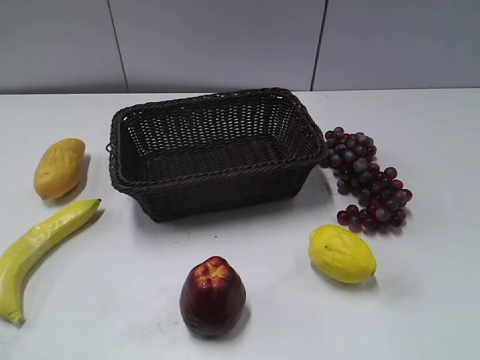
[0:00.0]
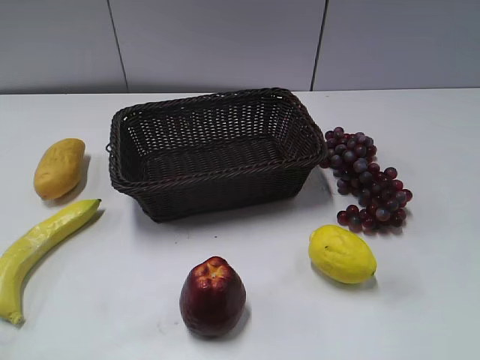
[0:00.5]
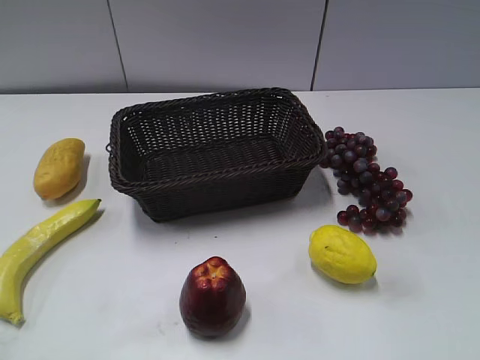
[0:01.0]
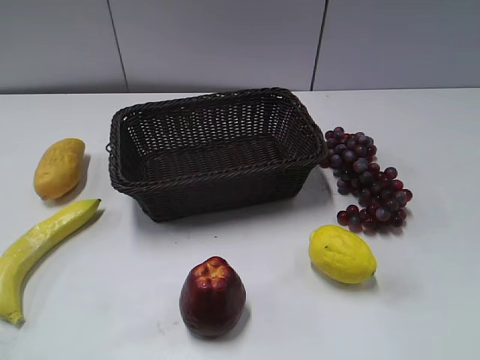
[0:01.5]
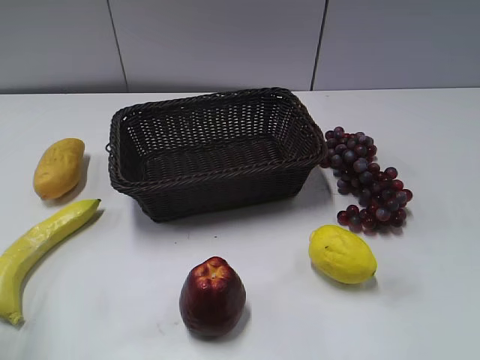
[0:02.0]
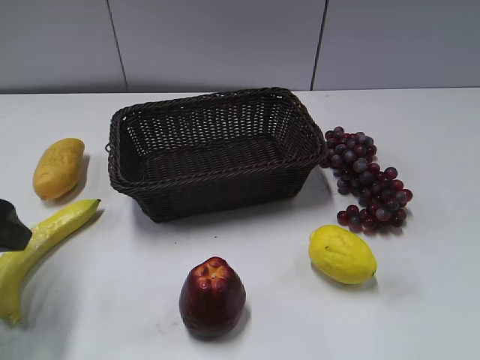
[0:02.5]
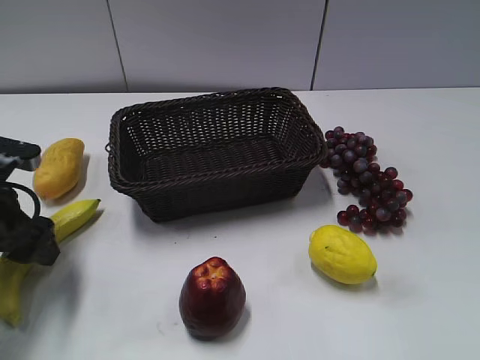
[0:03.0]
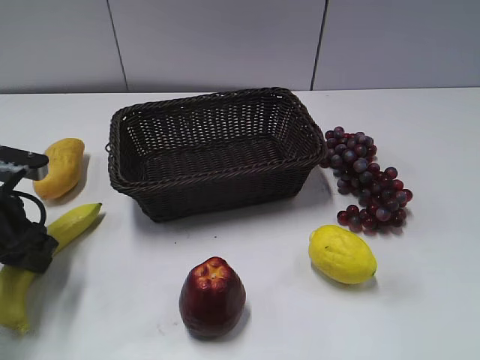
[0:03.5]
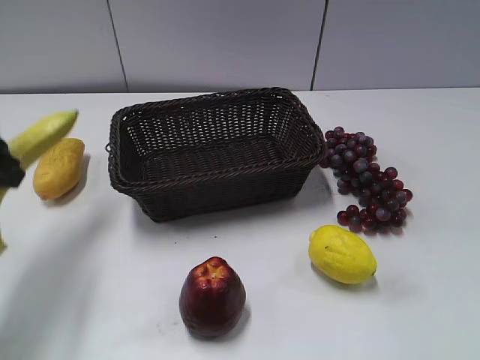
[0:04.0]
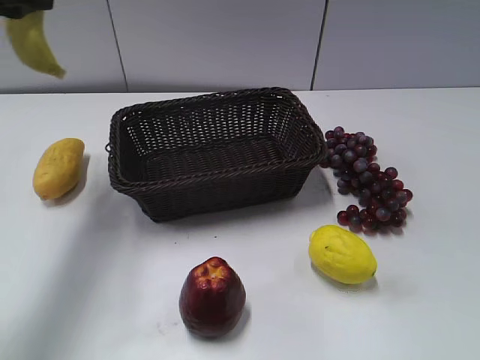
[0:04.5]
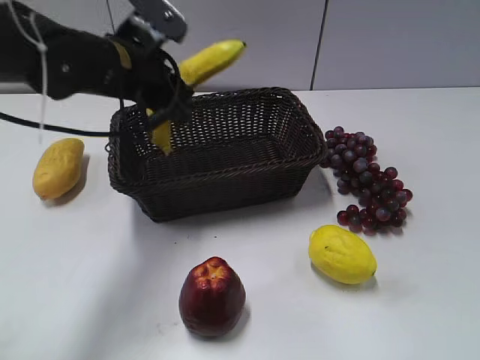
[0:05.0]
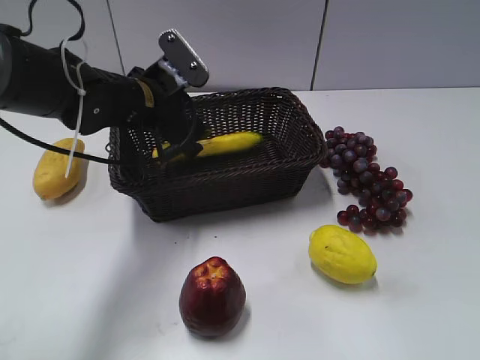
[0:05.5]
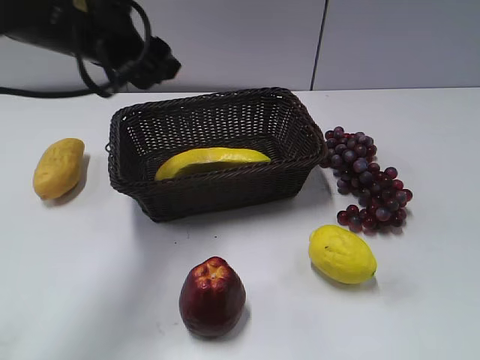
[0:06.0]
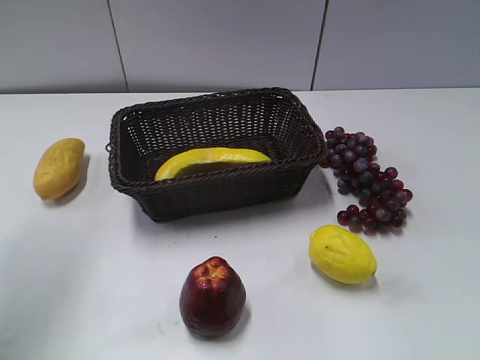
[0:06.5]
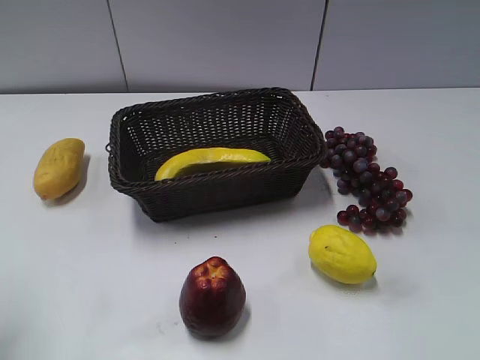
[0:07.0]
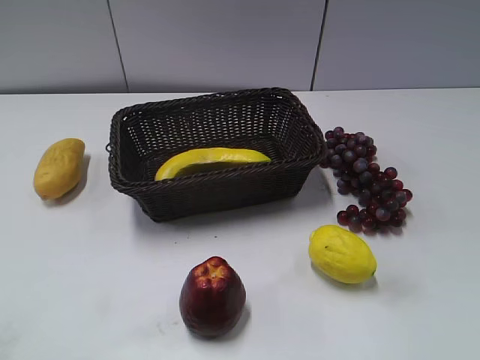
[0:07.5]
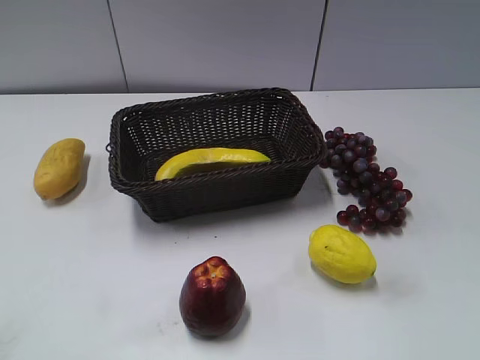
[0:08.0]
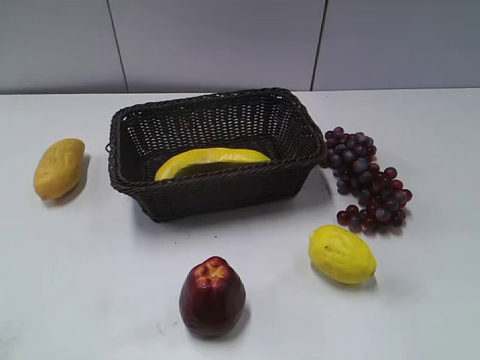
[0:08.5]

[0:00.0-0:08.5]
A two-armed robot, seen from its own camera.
Step, 0:02.5 to 0:03.5: Grasp the banana with left gripper.
Step, 0:04.0 to 0:05.5: Place the banana in the basket with left gripper.
0:02.0 to 0:04.0: The left gripper is displaced forward by some 15 cm, moves some 15 cm downward and comes back, and closes up.
0:04.0 to 0:06.5: The left gripper moves up and down over roughly 20 cm, changing direction 2 times, and opens.
0:06.5 to 0:08.5: The left gripper moves backward, approximately 25 cm.

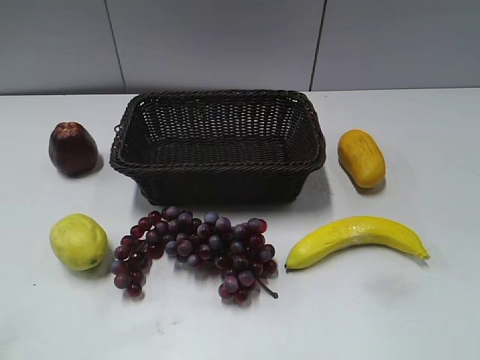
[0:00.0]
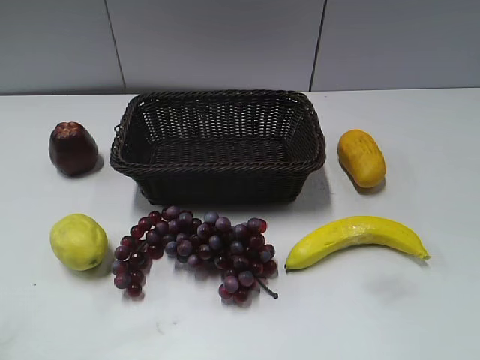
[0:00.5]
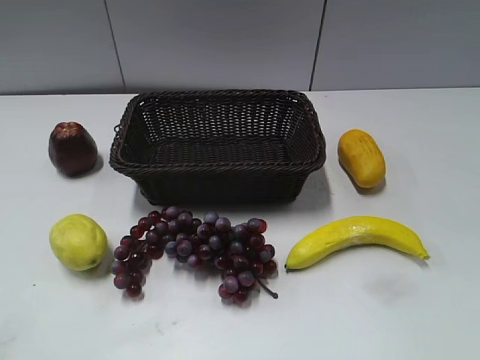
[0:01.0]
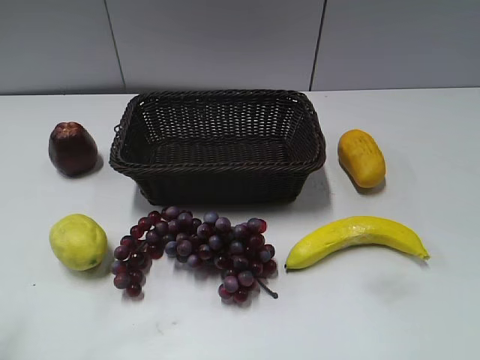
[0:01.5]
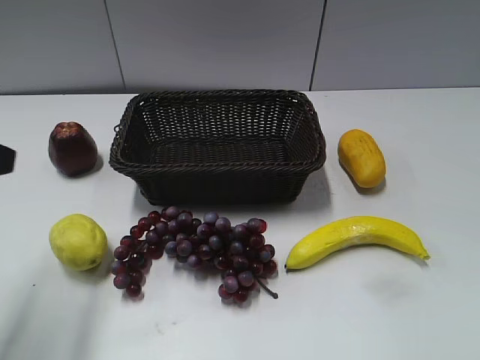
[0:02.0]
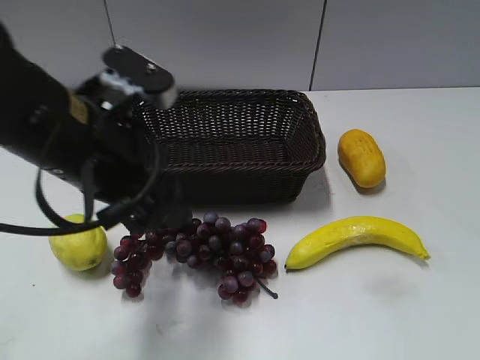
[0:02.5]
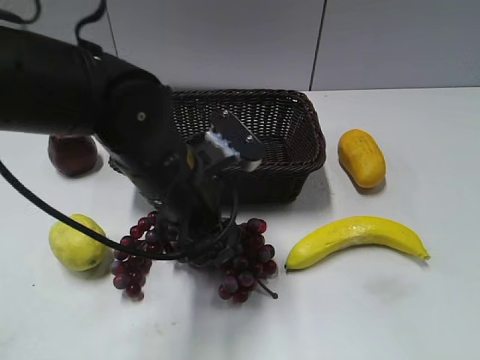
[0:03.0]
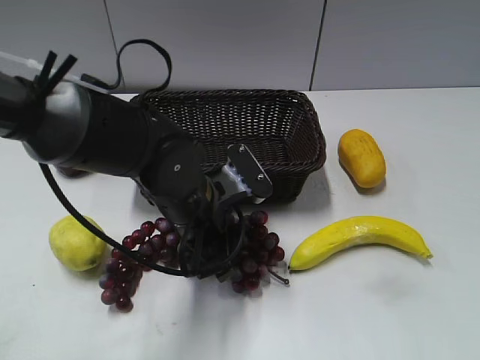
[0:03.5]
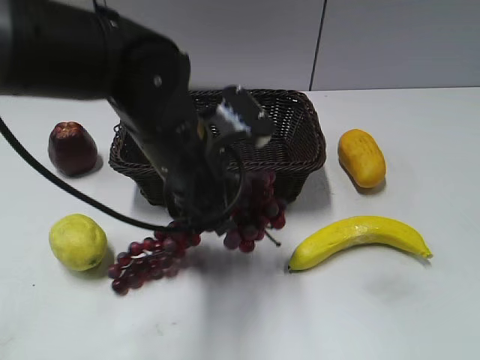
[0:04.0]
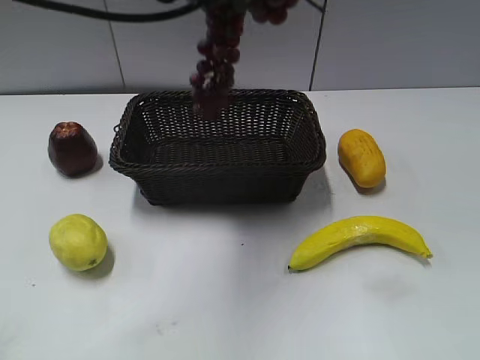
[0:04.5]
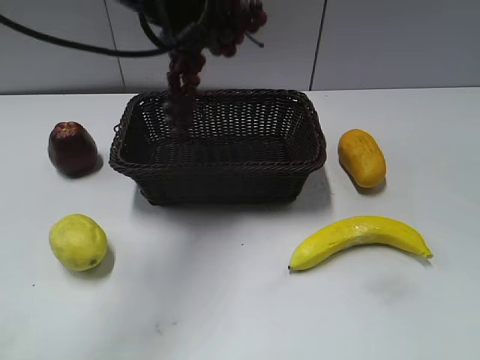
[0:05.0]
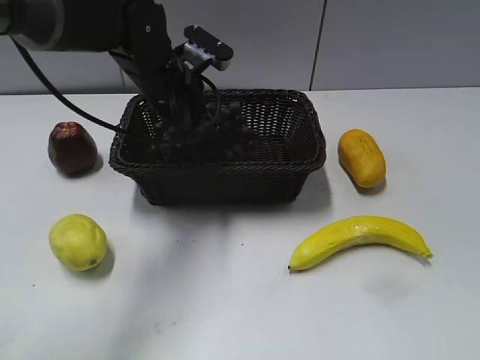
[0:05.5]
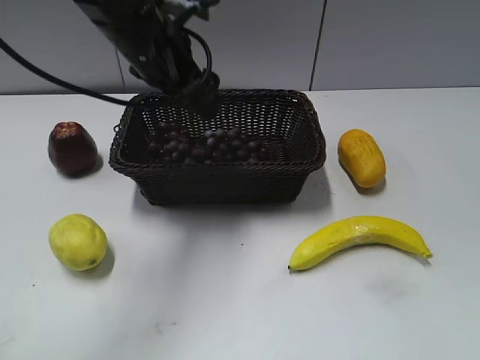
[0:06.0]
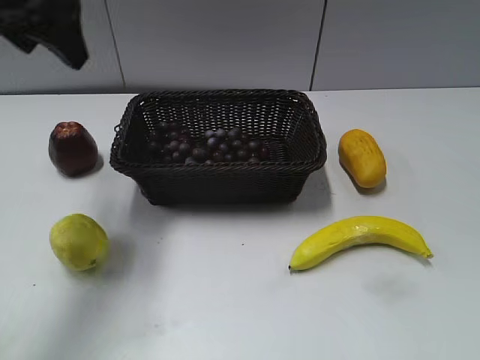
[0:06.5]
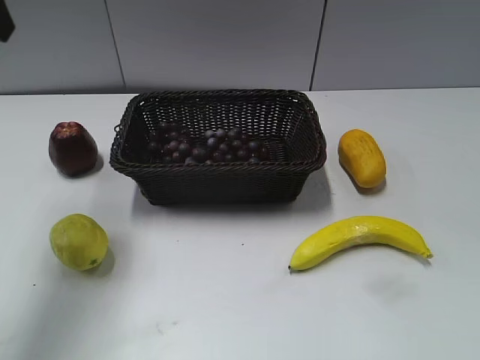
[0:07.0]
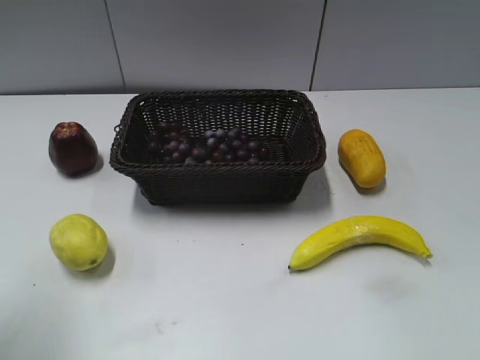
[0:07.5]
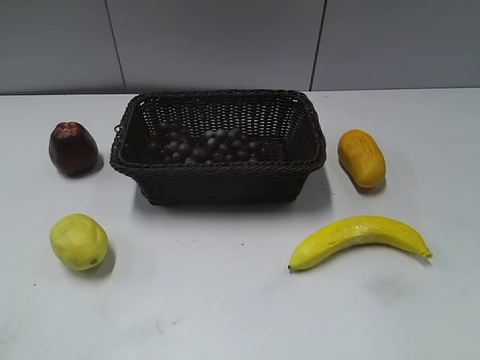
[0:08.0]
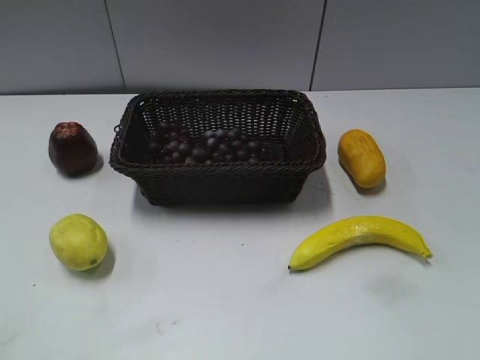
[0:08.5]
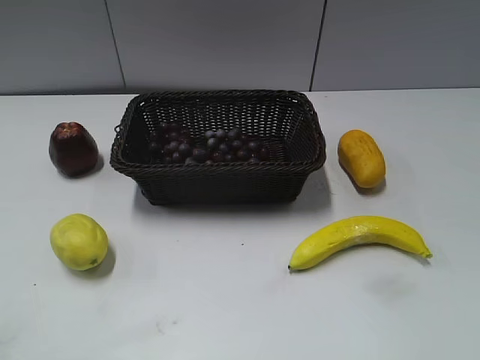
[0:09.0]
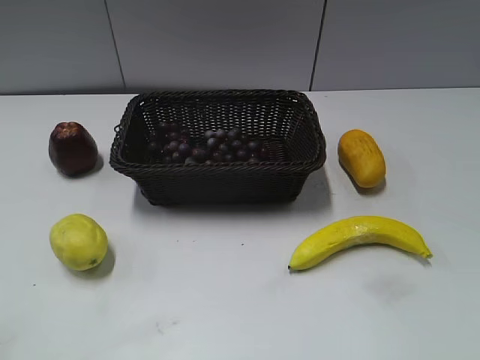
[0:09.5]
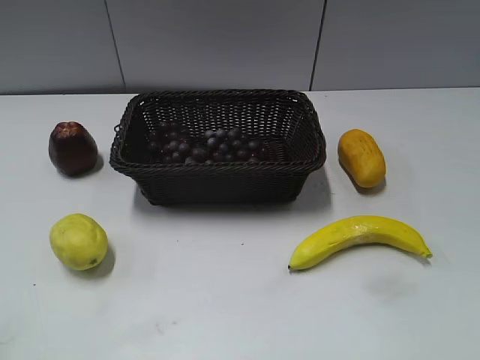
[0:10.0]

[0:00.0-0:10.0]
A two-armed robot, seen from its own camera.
Step, 0:02.0 to 0:03.5: Grasp the grape with left gripper.
Step, 0:04.0 to 0:05.5: Place the grape in the basket with left gripper.
0:02.0 to 0:04.0: The left gripper shifts approximately 20 cm to the right, and closes up.
0:04.0 to 0:06.0: The left gripper goes up and down, some 20 cm each way, reversing 2 times, and opens up.
0:06.0 to 0:08.0: The left gripper goes about 35 cm backward and to the left.
